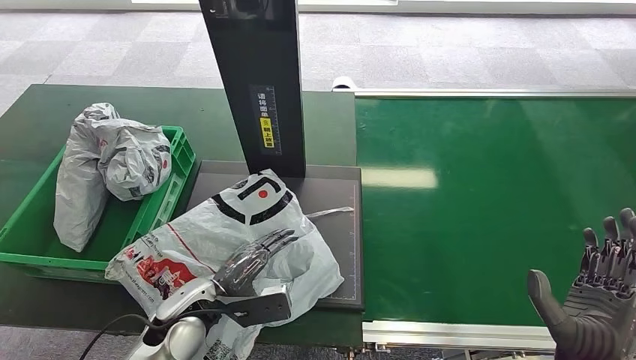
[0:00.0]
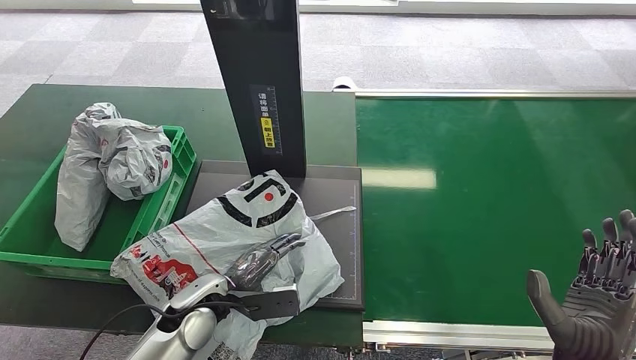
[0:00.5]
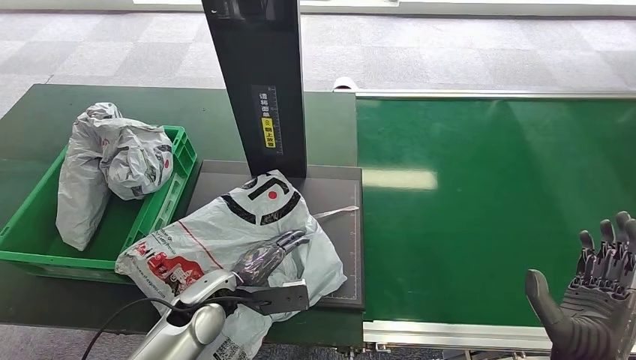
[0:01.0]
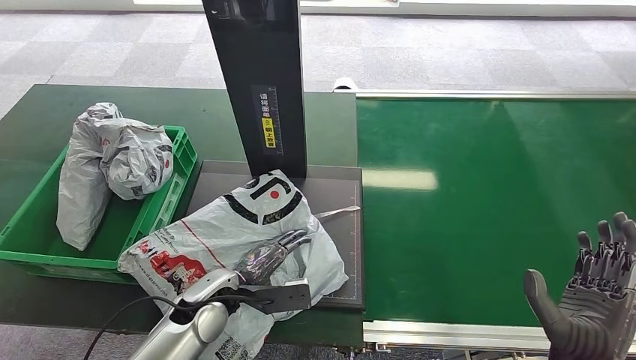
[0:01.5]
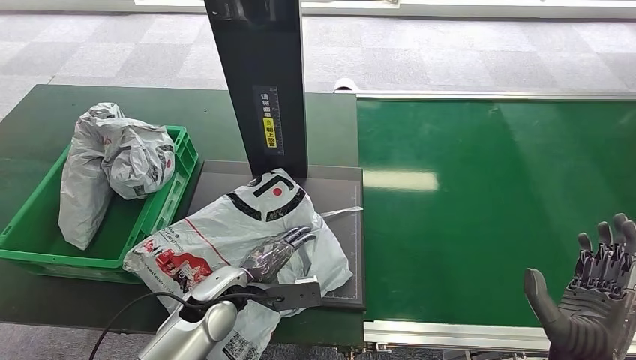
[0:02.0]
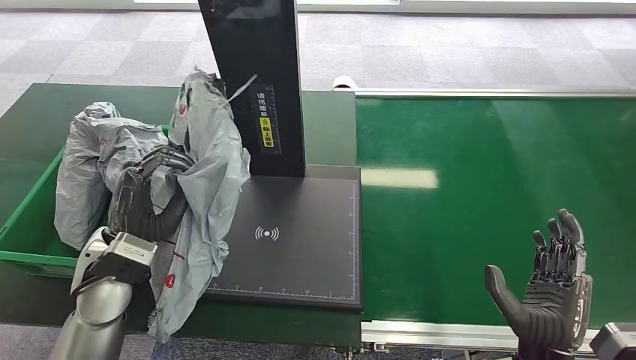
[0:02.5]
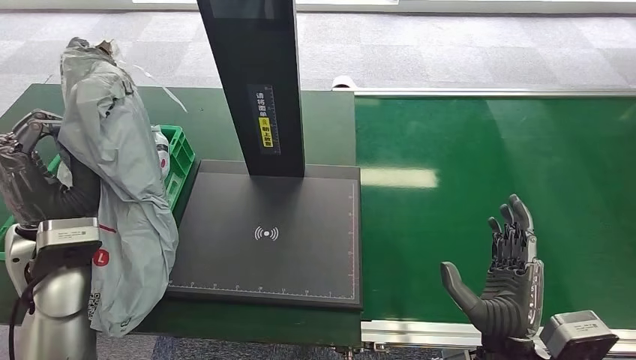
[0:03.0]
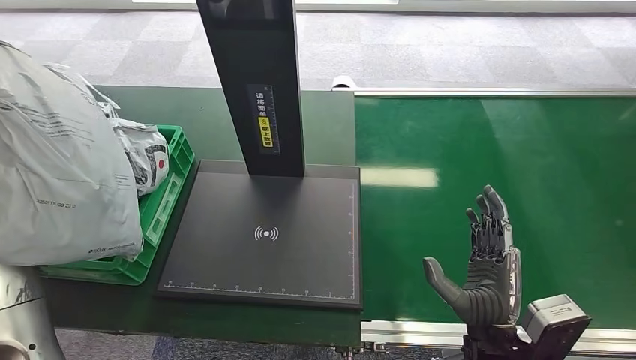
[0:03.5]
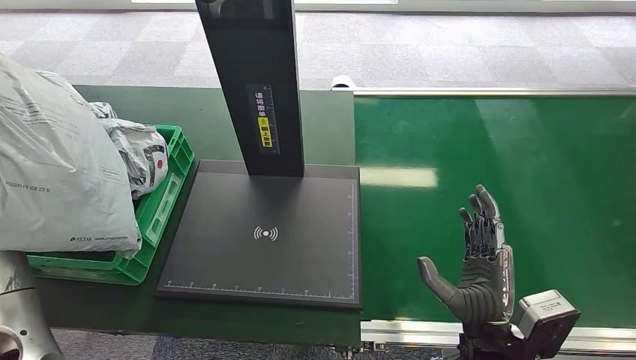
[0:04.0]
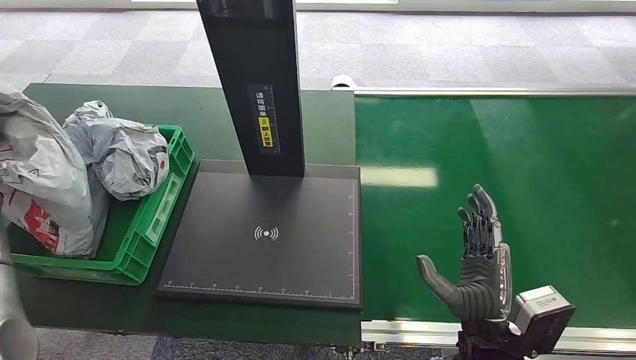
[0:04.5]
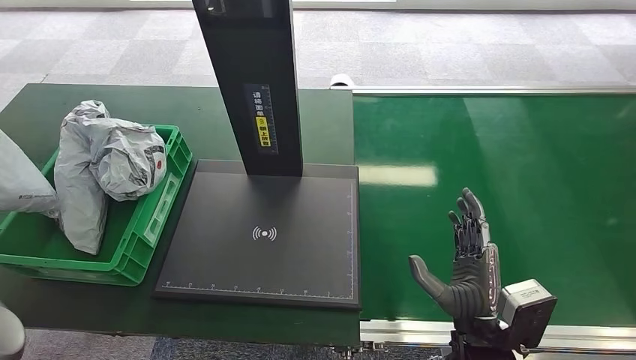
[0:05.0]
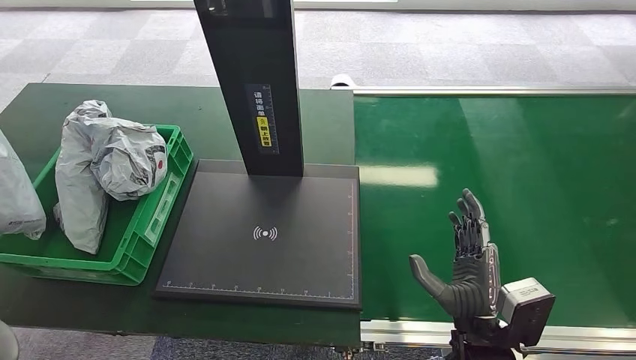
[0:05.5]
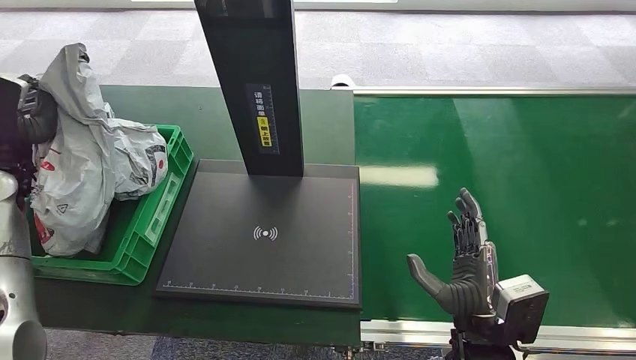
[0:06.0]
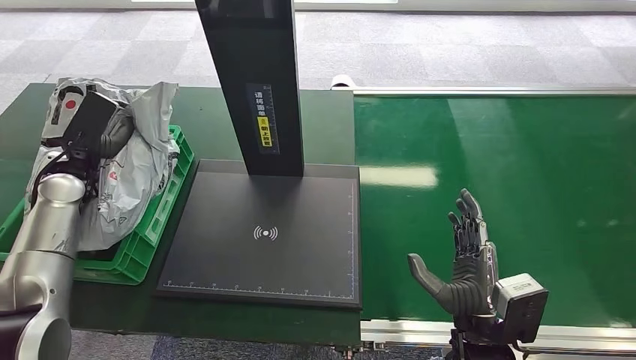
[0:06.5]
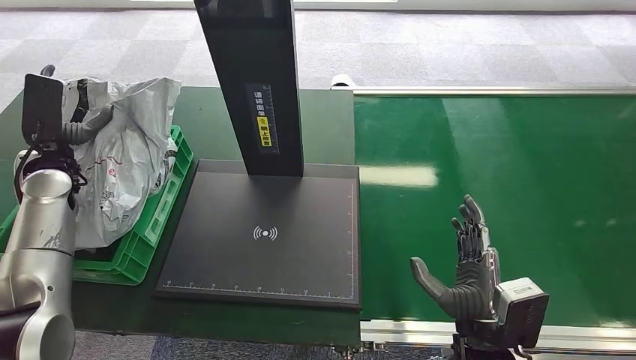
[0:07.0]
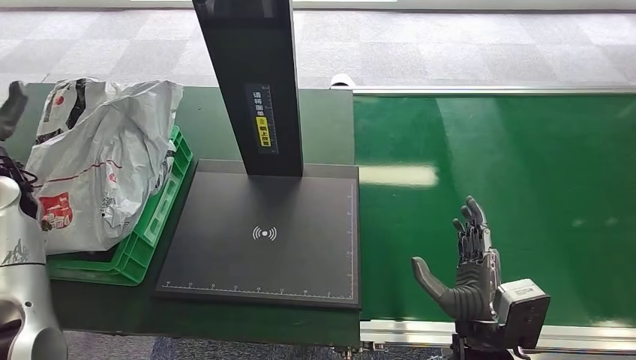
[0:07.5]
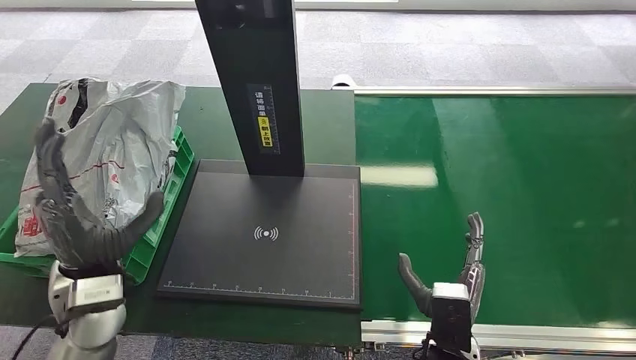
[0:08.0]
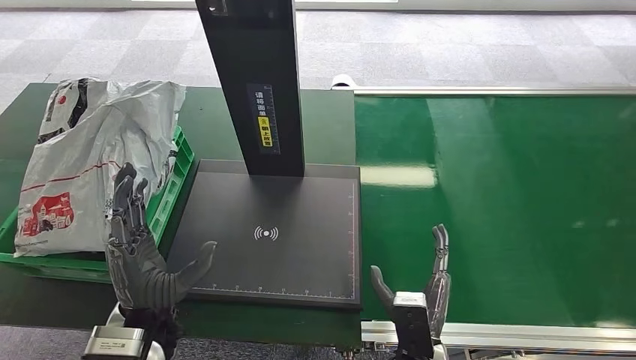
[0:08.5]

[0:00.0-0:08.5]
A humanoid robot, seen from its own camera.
Step, 0:00.0 to 0:03.0: Pick up the package from the inbound machine.
Step, 0:03.5 to 0:08.5: Place the package into the parcel locker.
0:04.0 to 0:06.5: The left hand heads forward, covering roughly 5 cm, and goes to the left and returns, approximately 10 cm each way.
0:06.5 to 0:08.5: The left hand is displaced to the right and backward by about 30 cm. The right hand shifts some 10 cm downward and to the left.

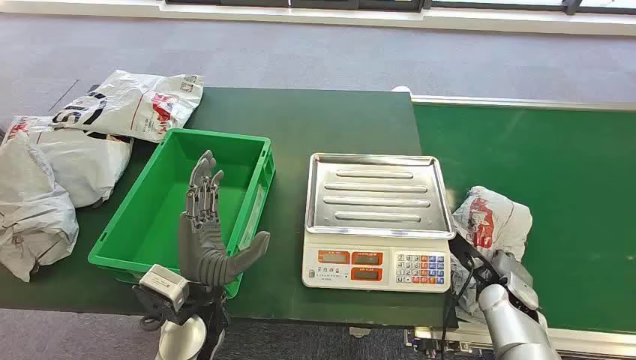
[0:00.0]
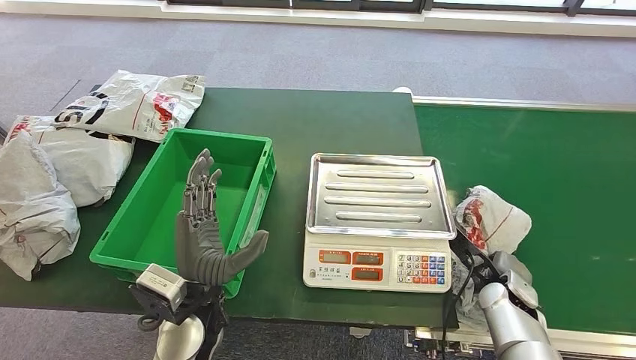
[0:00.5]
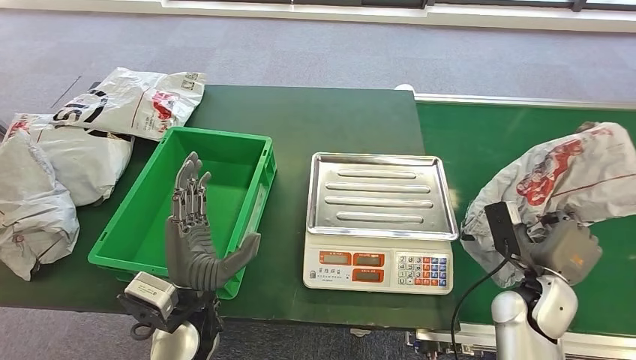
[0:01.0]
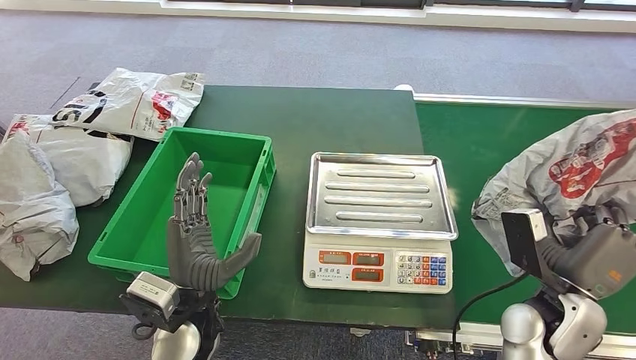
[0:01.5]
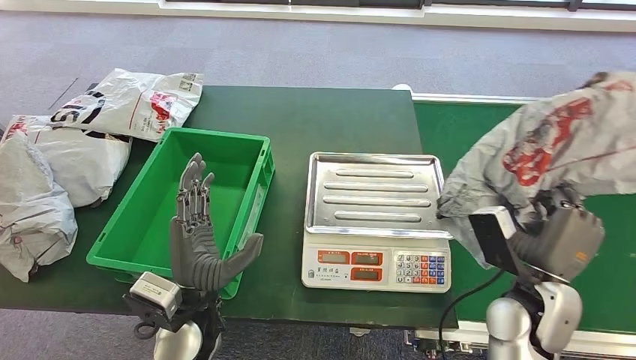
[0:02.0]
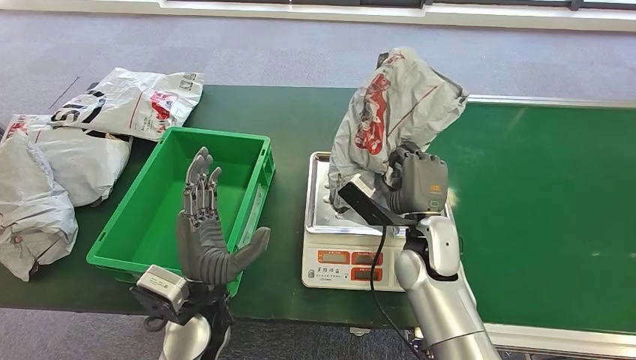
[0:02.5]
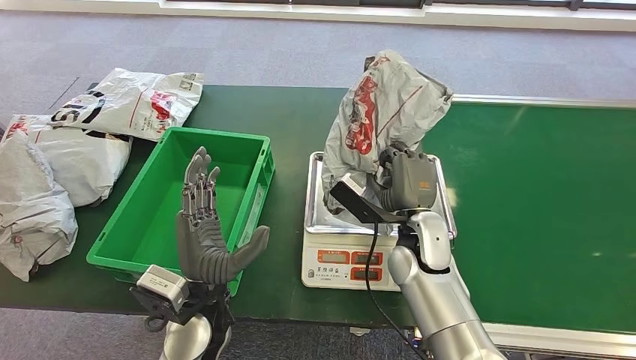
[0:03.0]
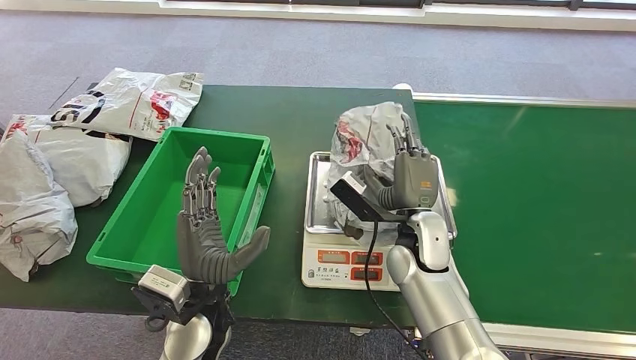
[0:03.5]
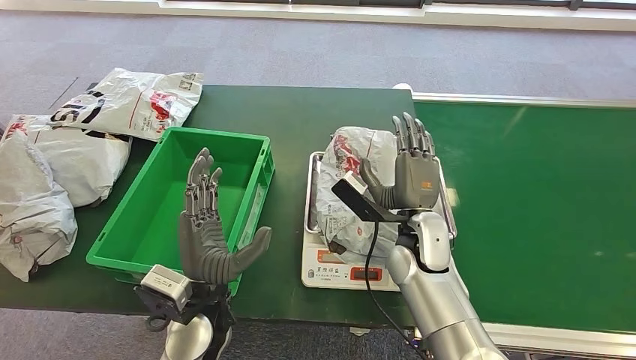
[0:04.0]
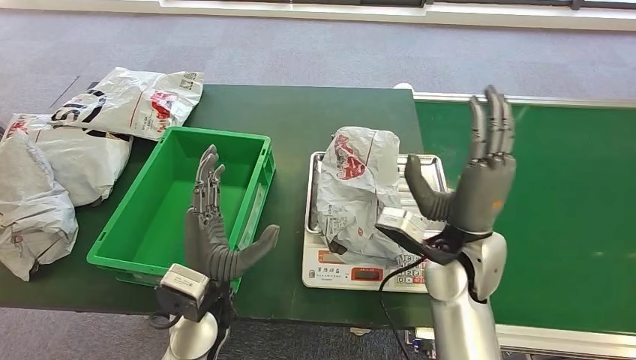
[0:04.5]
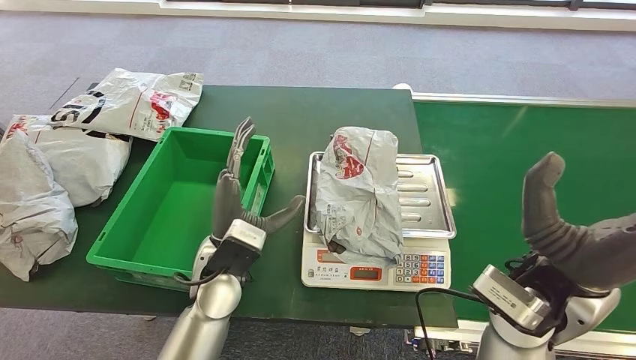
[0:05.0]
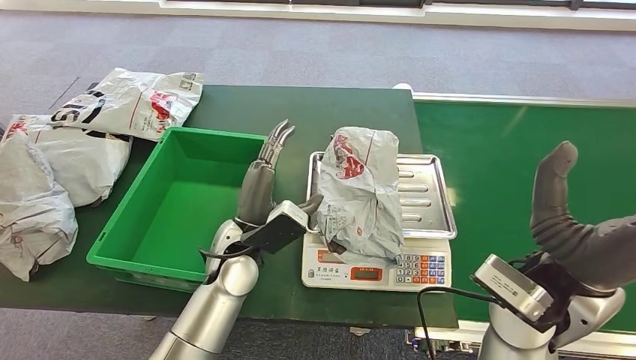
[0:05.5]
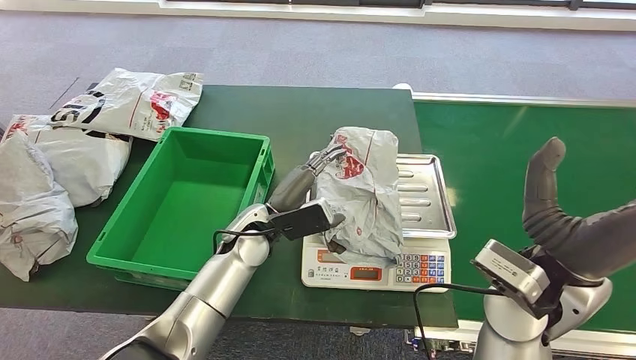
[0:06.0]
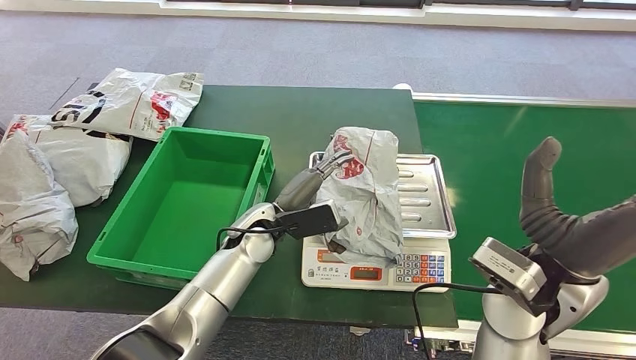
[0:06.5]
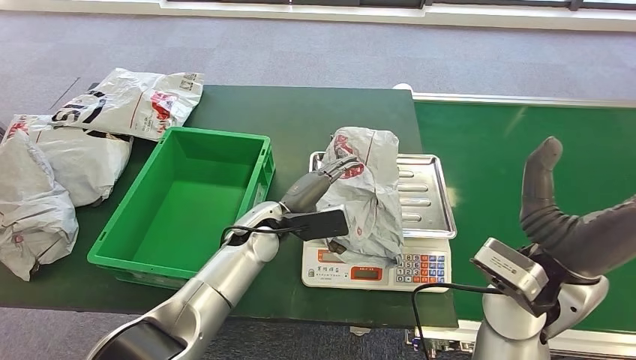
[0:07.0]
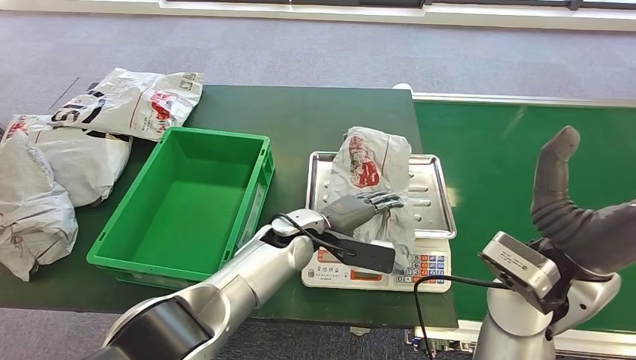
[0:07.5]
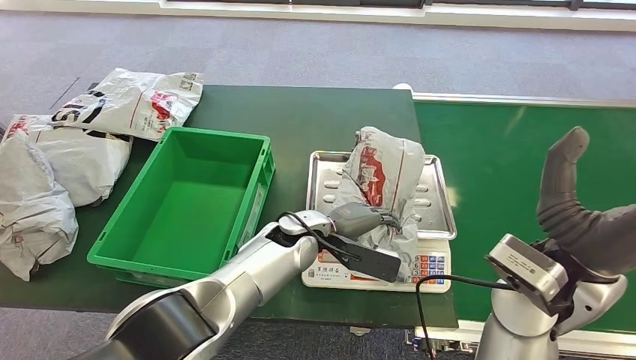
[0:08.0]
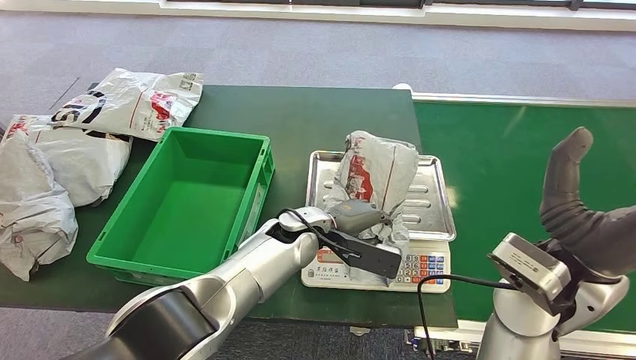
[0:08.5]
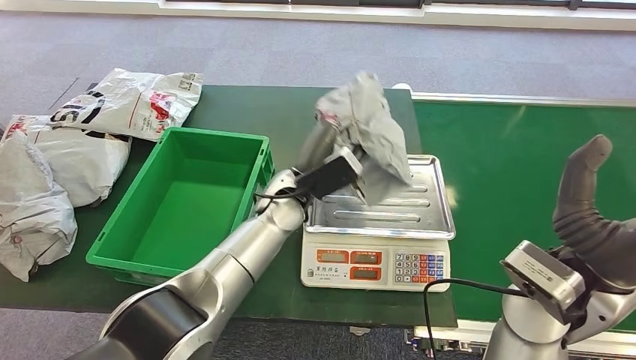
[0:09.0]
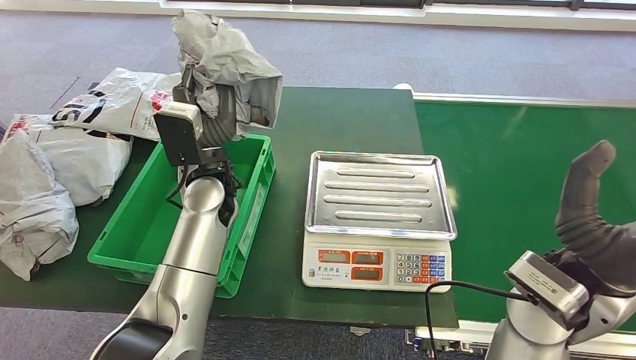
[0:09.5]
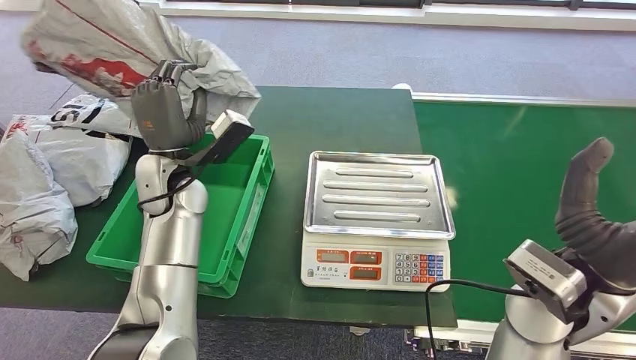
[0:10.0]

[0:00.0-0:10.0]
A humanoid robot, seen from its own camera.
Step, 0:00.0 to 0:01.5: Pick up the package from the conveyor belt.
Step, 0:02.0 to 0:04.0: Place the package onto the inbound machine.
0:04.0 to 0:06.0: The left hand goes roughly 15 cm forward. Meanwhile the right hand shifts approximately 20 cm upward, to the right and backward.
0:06.0 to 0:08.0: The left hand goes some 10 cm to the right.

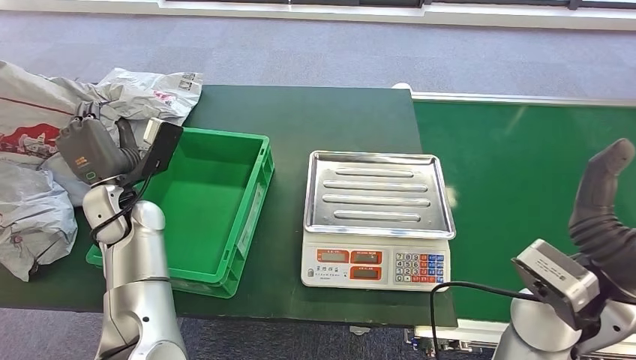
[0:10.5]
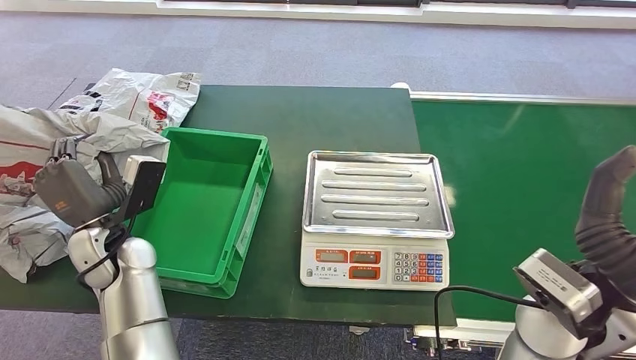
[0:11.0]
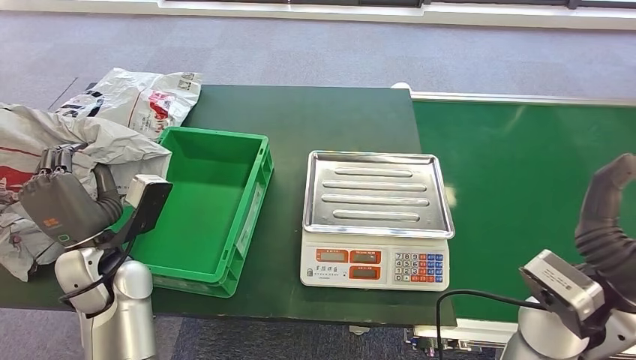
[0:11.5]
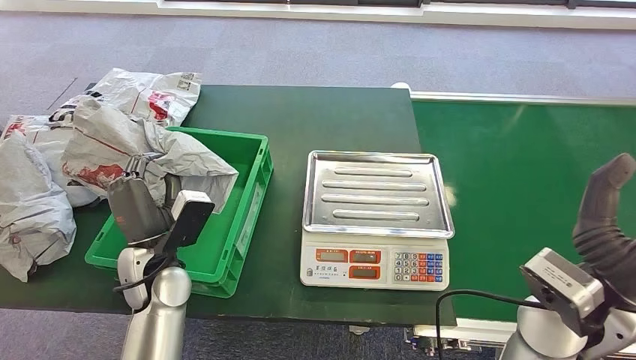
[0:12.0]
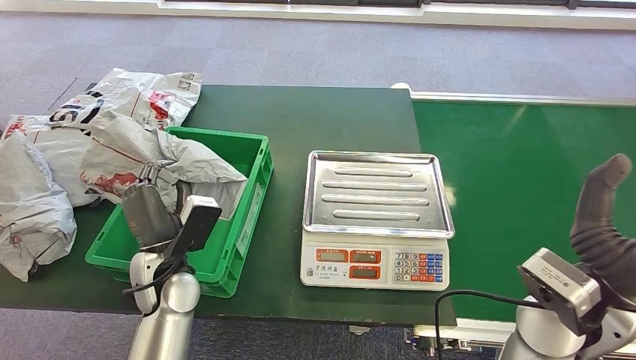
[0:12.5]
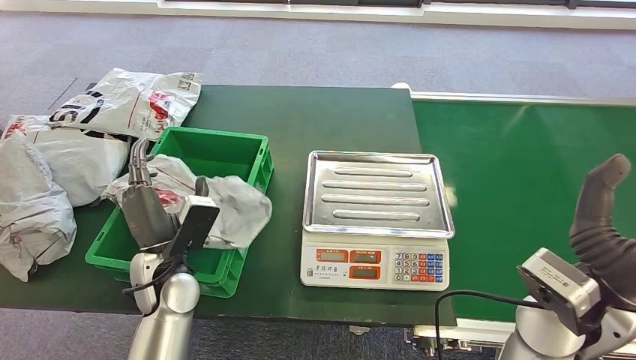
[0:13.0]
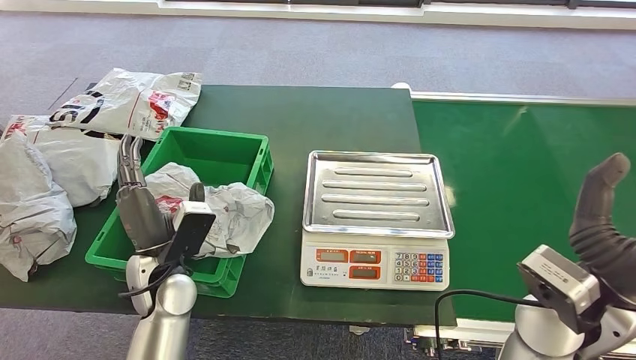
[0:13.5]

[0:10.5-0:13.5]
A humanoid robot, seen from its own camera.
Step, 0:10.5 to 0:13.5: Place the package into the parcel locker.
0:10.5 to 0:12.0: The left hand travels backward and to the right by some 10 cm.
0:12.0 to 0:13.5: The hands move only a little.
